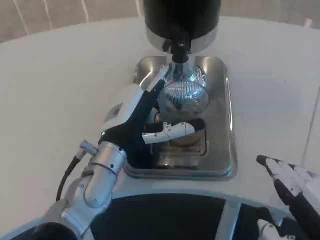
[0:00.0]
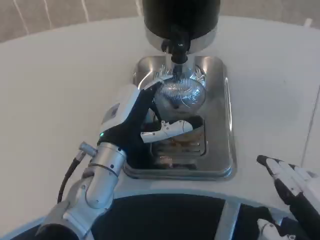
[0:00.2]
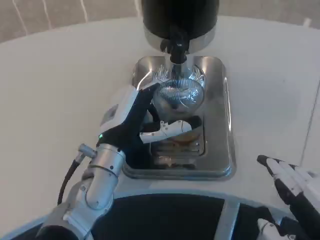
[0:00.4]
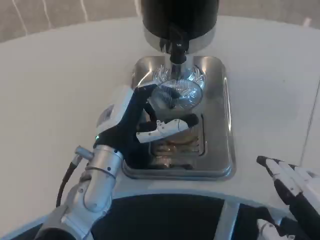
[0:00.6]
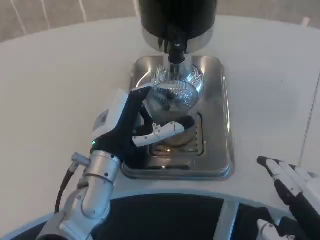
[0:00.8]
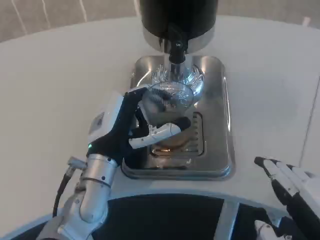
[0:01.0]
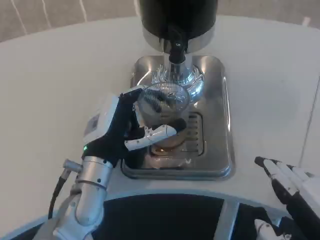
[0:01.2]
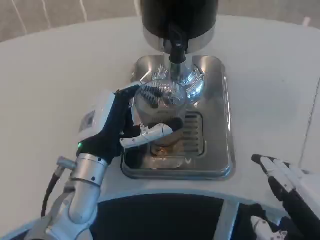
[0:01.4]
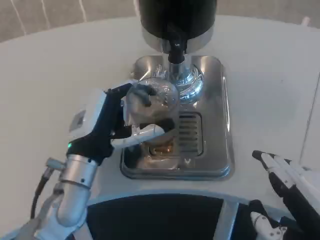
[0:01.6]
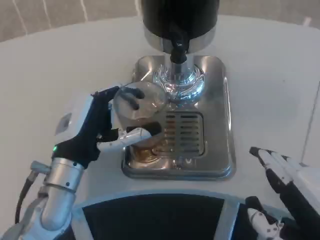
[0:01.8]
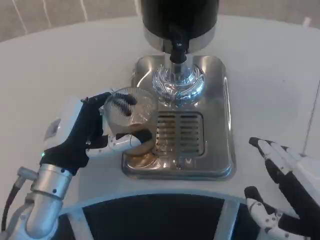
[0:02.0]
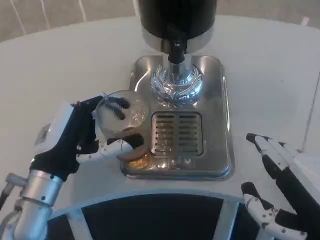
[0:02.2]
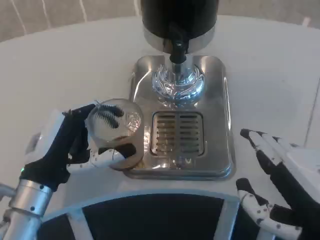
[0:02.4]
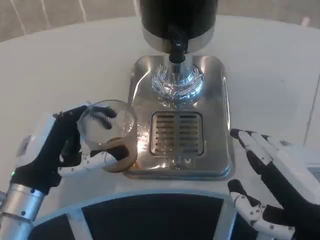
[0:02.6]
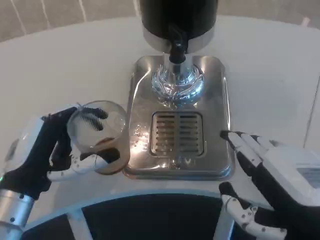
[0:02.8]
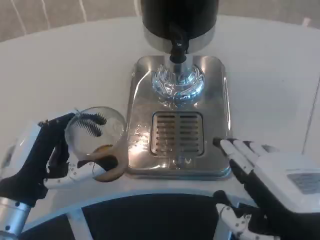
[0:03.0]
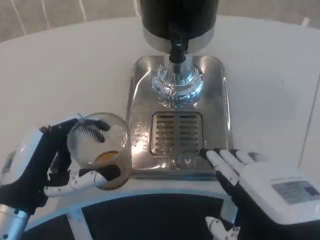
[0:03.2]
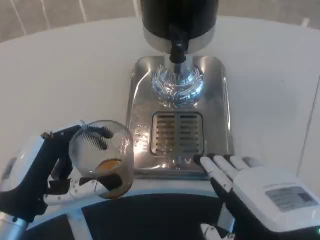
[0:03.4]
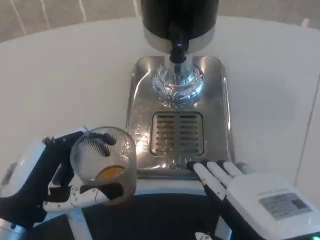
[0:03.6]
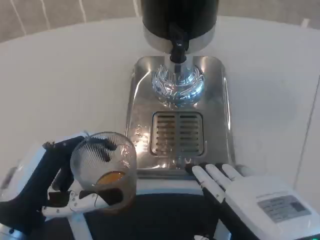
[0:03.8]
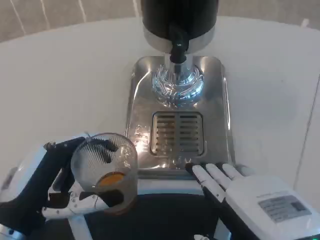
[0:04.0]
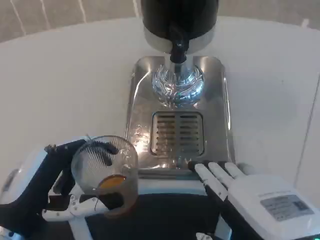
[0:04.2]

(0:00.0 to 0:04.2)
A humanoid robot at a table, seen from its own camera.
Task of the whole recording: Grasp the cup under the faucet to collect the drink, then remove the cup.
0:00.0 - 0:01.4: The hands stay close to where they were, moving slightly.
0:01.4 - 0:02.8: The left hand travels to the left and backward by some 10 cm.

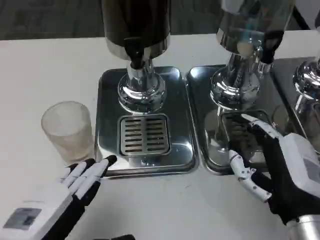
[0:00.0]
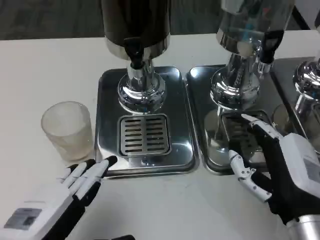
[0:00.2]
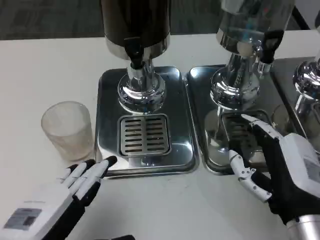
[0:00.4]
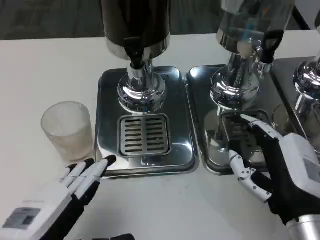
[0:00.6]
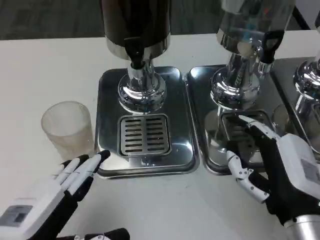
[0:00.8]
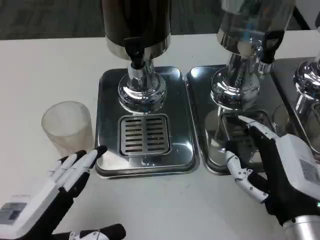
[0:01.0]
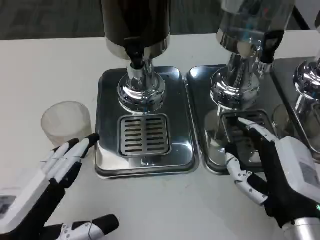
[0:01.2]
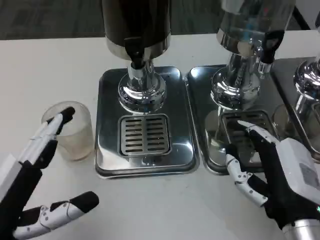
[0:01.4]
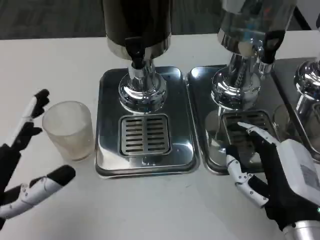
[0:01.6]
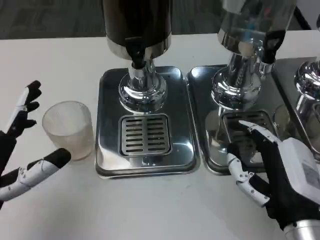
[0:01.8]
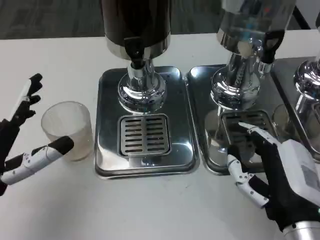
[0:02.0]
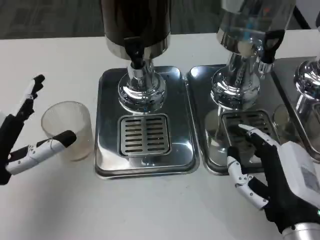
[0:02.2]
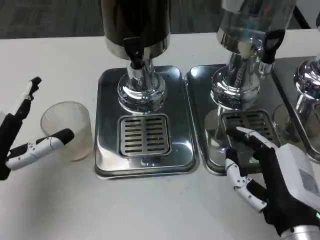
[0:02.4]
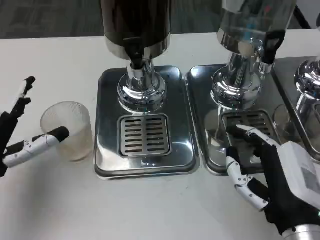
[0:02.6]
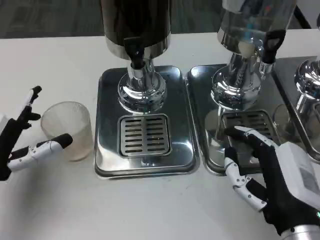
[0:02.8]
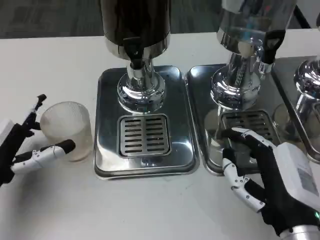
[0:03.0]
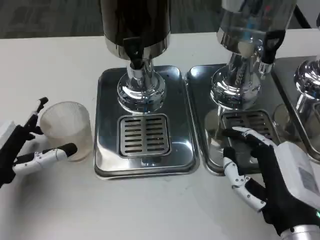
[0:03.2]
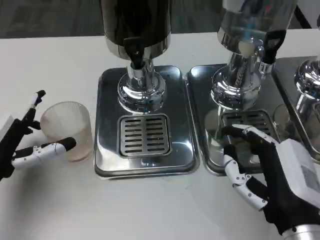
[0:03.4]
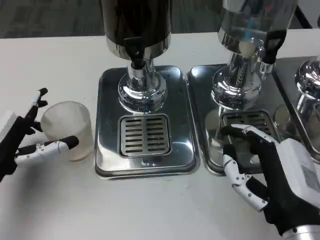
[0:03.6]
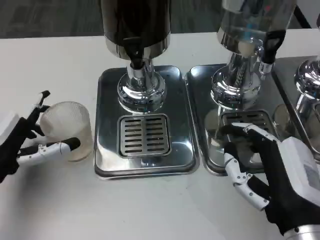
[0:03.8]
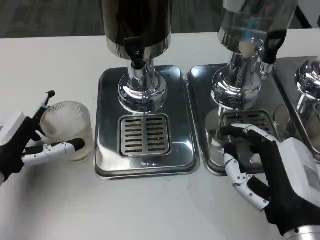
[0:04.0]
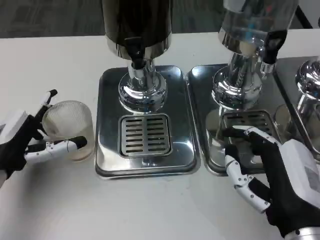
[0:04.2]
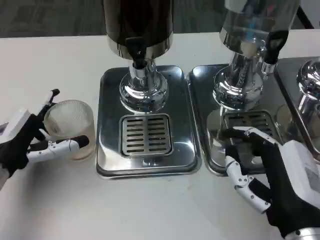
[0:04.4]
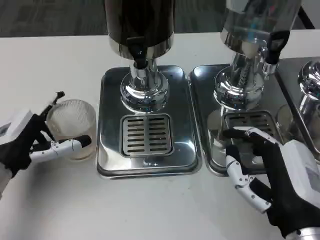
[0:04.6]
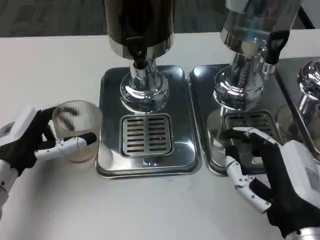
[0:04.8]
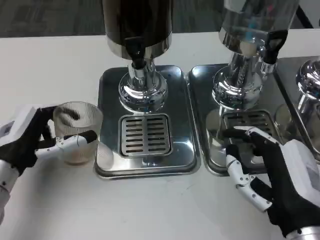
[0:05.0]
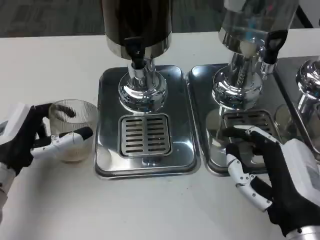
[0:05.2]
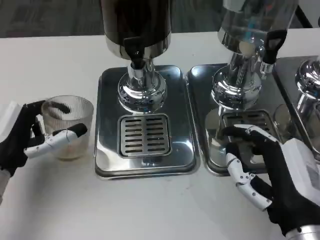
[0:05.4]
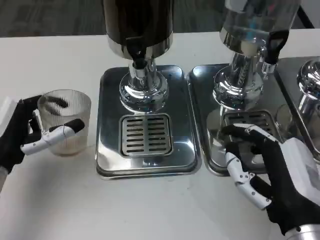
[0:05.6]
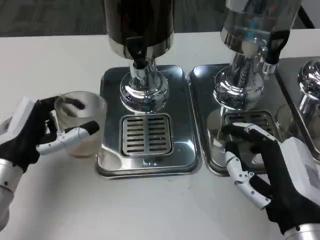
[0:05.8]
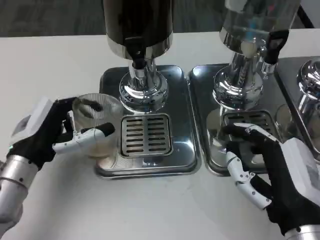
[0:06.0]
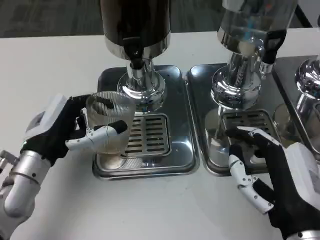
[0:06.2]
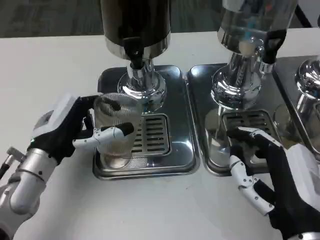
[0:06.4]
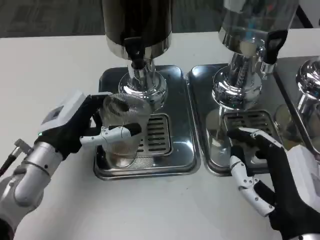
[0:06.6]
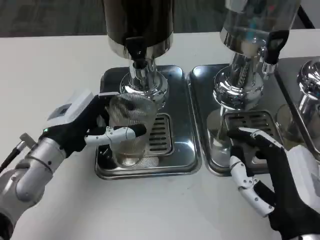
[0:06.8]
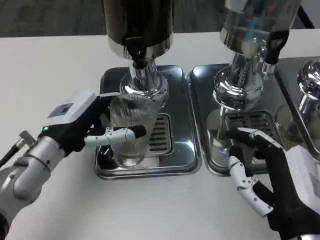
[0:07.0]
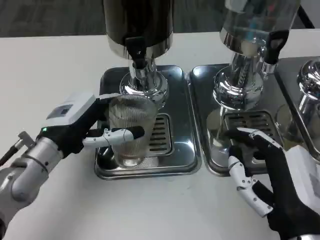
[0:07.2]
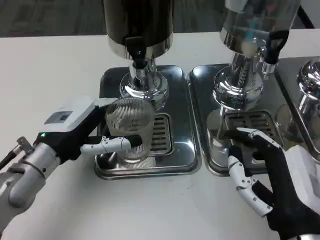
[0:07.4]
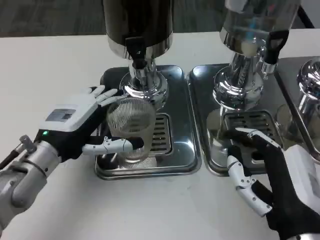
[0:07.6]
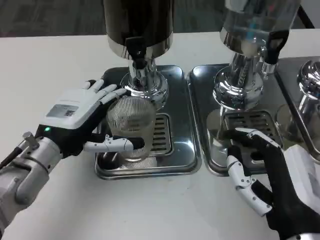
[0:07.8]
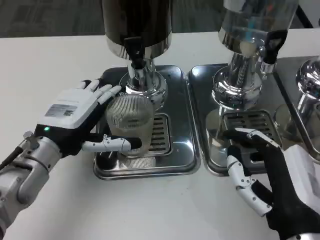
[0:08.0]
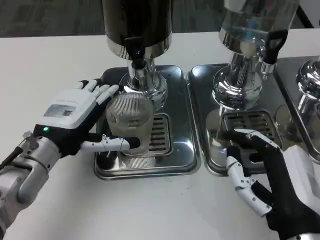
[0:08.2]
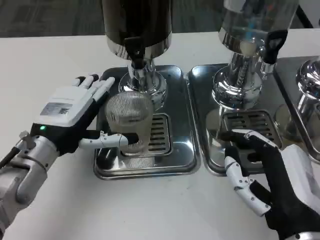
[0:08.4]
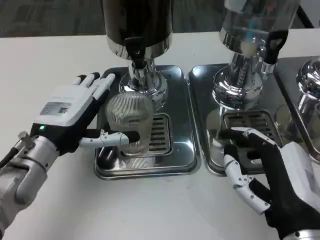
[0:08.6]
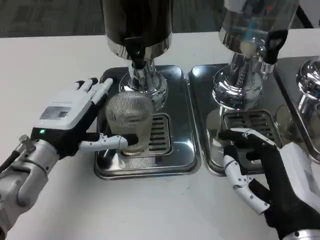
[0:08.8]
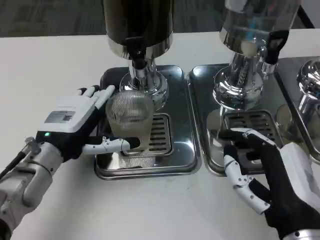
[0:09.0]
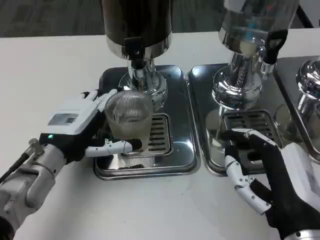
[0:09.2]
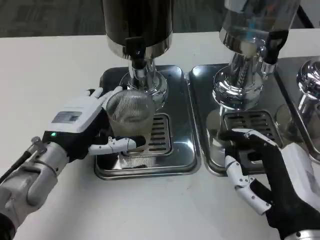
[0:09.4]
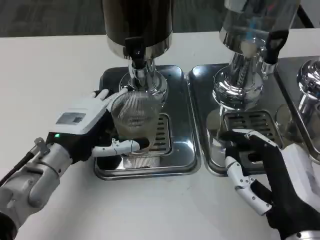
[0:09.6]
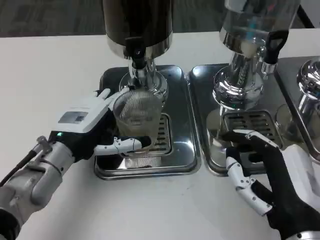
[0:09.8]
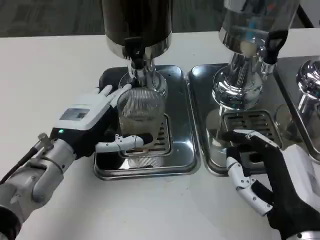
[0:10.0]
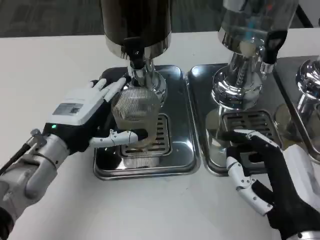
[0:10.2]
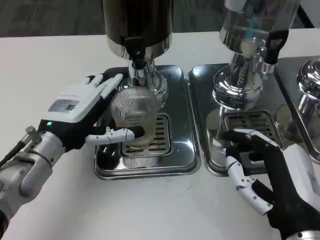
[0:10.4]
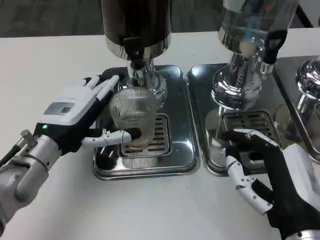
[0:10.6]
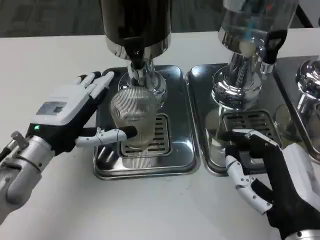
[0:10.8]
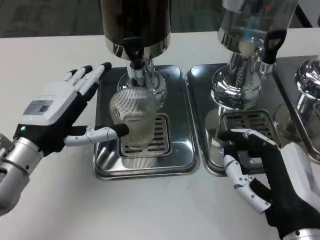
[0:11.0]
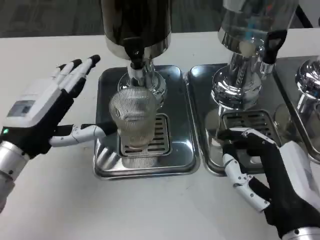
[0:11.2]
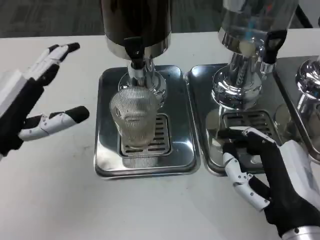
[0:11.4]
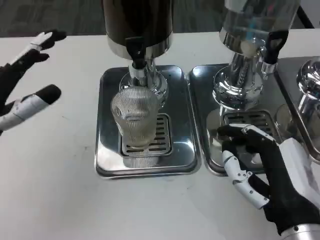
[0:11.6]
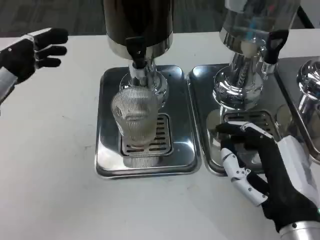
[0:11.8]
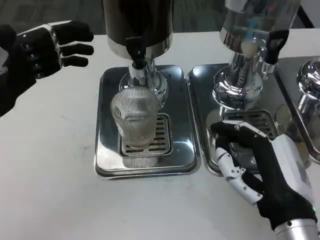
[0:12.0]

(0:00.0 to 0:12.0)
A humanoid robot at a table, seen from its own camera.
Task of the whole recording: Grasp the cup under the faucet to collect the drink, then remove the cup.
0:01.6 - 0:03.0: The left hand shifts some 10 cm forward.
0:07.6 - 0:10.4: The hands stay close to where they were, moving slightly.
0:10.4 - 0:12.0: The left hand is displaced to the left and upward by approximately 15 cm.

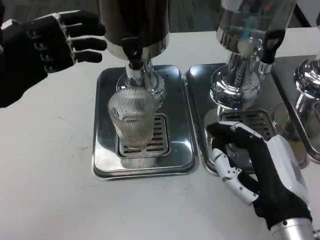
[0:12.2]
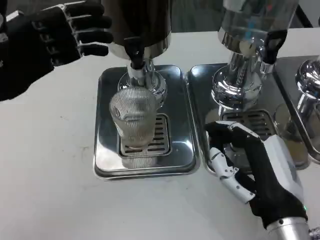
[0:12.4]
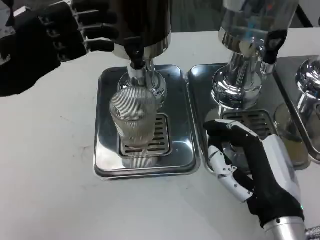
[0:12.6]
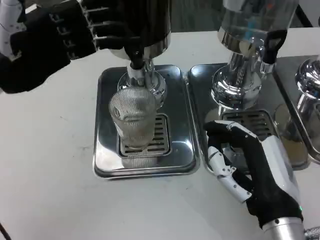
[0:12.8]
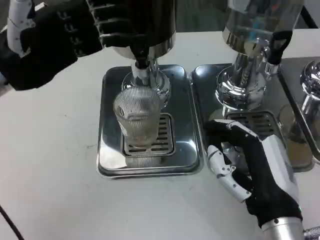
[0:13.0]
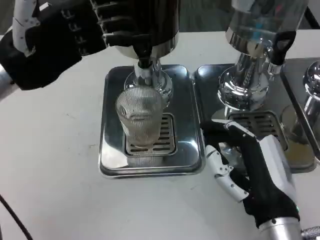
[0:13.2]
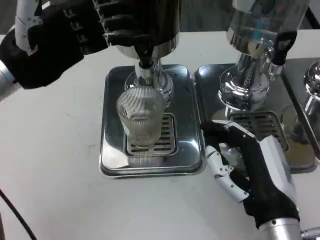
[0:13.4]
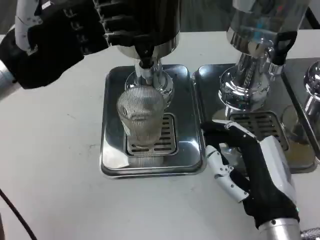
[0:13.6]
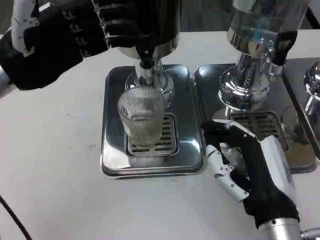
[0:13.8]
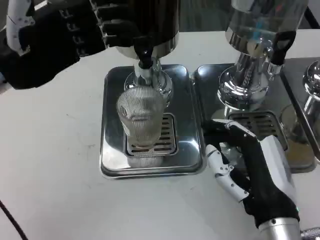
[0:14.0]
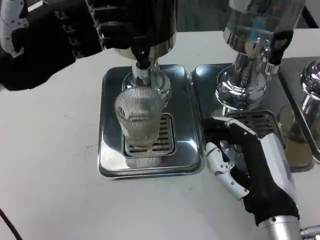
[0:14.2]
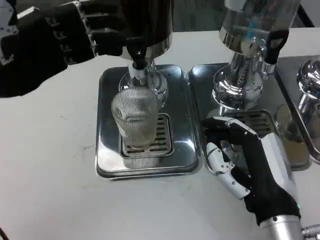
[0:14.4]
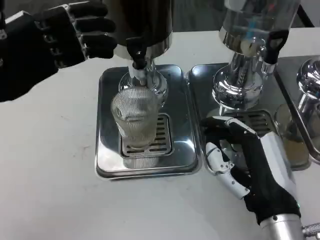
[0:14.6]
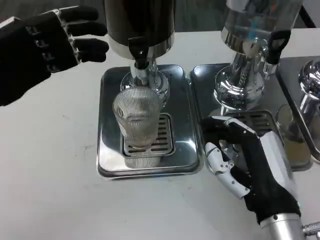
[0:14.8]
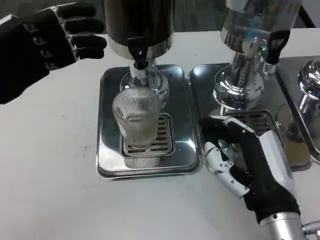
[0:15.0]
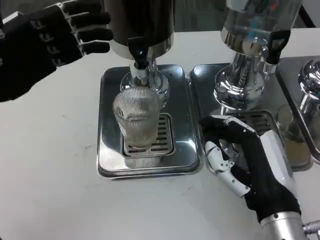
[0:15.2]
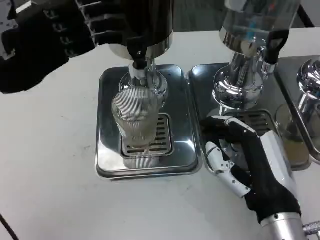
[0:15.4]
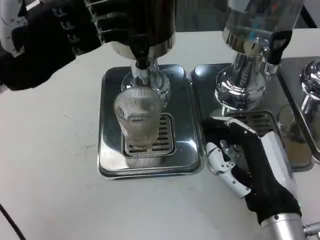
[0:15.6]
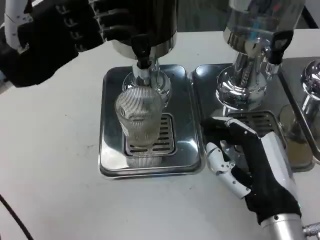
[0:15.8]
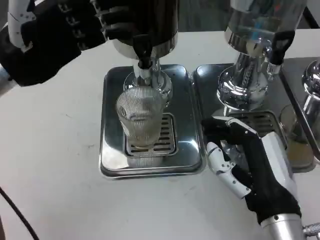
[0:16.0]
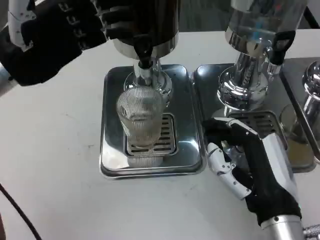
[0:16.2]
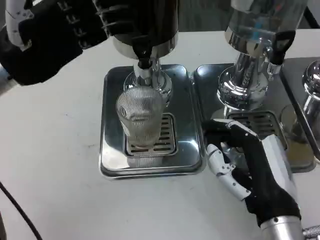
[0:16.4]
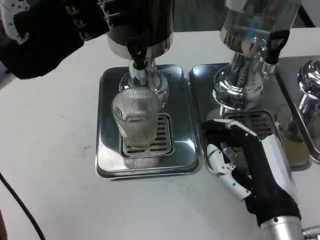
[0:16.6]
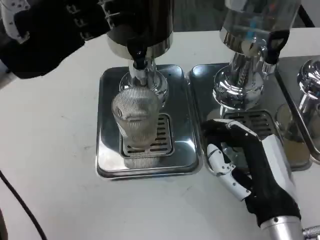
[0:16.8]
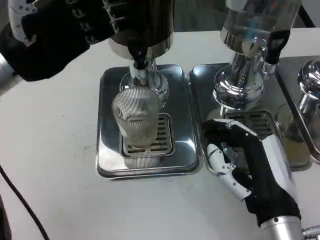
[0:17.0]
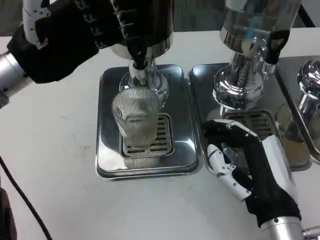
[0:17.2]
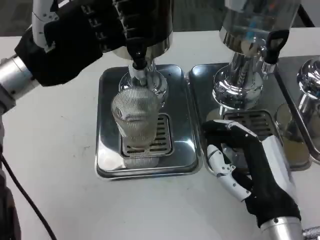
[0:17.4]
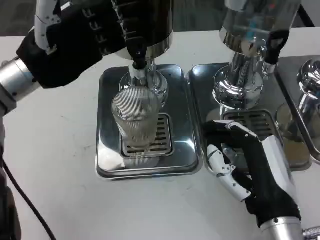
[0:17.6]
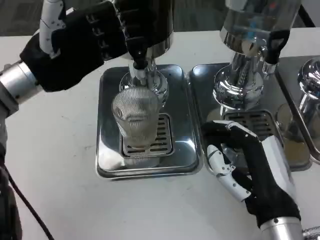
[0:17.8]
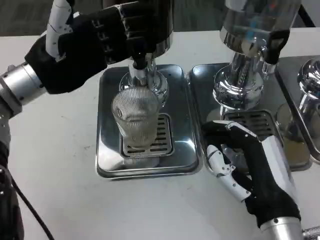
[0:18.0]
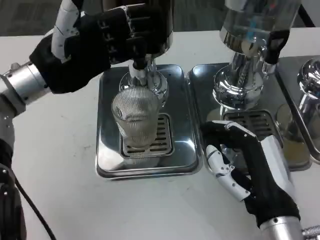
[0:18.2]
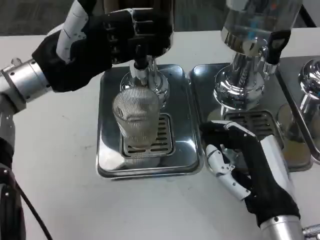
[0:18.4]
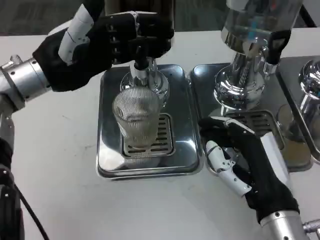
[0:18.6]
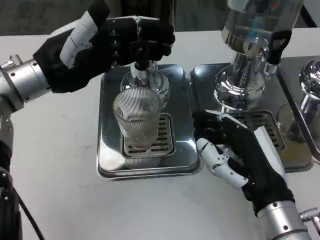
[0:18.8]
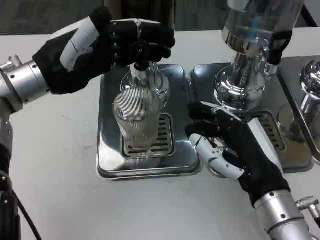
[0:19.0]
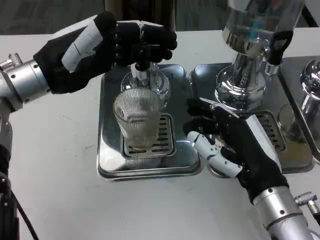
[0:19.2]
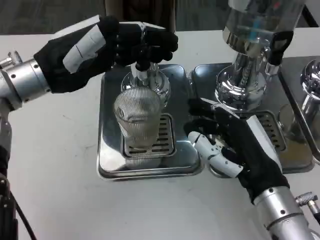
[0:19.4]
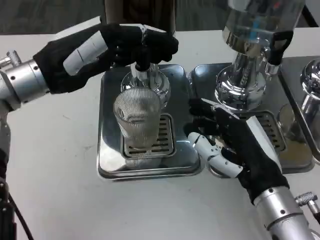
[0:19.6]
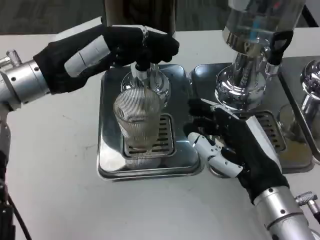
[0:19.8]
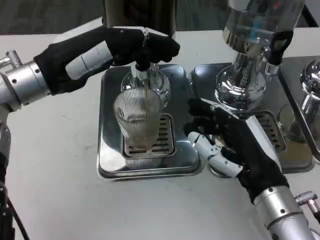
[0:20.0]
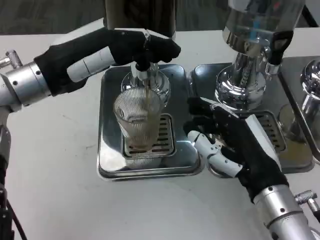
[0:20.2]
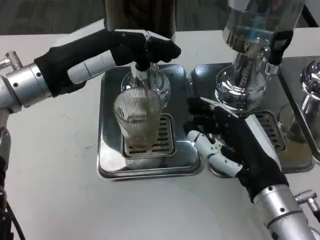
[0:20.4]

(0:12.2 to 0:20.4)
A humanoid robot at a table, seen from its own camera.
Task of the whole recording: Grasp the cup under the faucet to collect the drink, then remove the cup.
0:12.2 - 0:13.8: The left hand shifts by roughly 5 cm.
0:15.4 - 0:17.2: The hands stay close to where they were, moving slightly.
